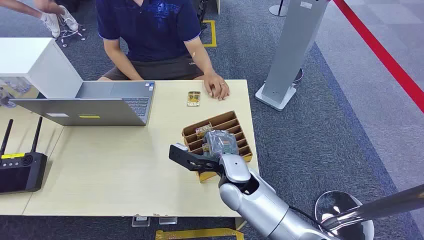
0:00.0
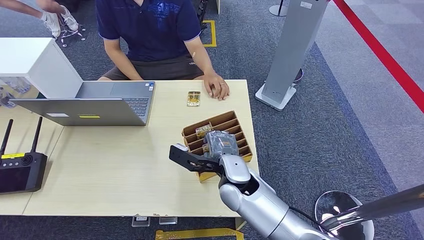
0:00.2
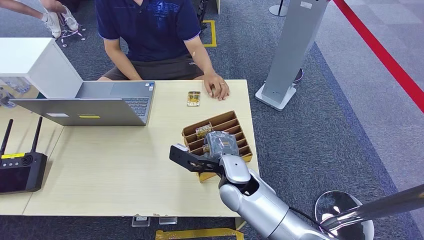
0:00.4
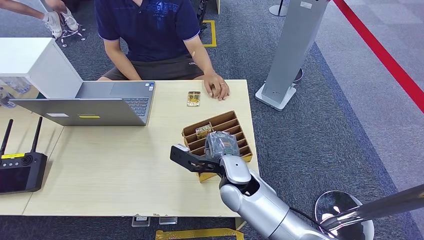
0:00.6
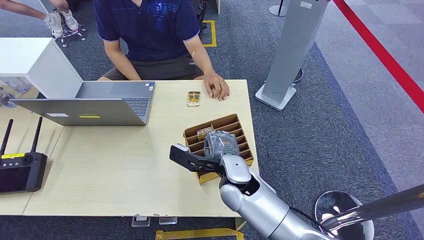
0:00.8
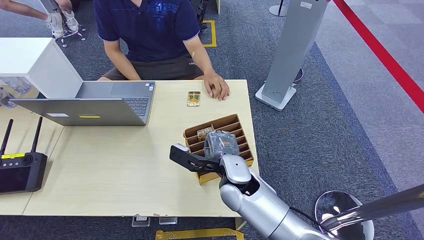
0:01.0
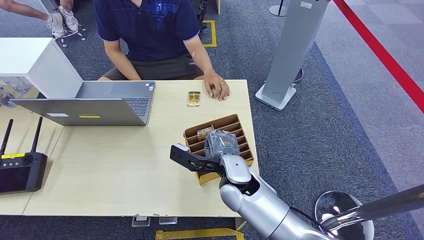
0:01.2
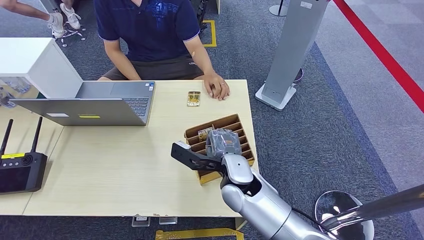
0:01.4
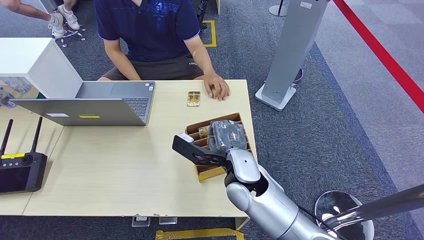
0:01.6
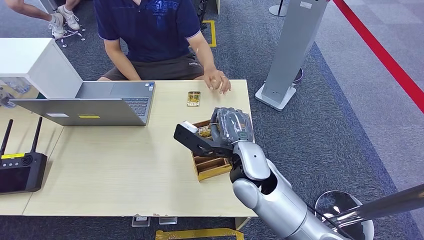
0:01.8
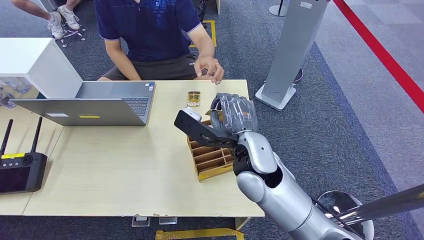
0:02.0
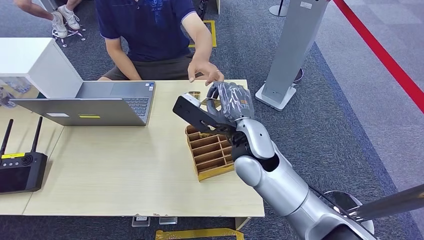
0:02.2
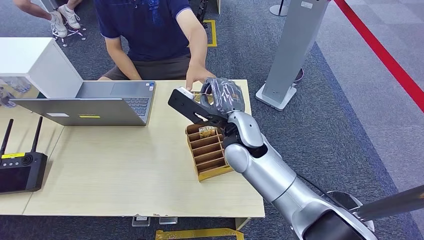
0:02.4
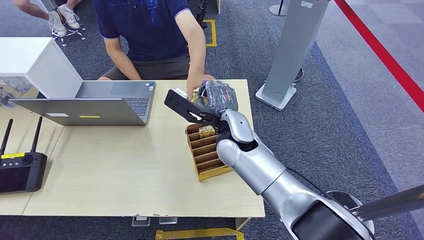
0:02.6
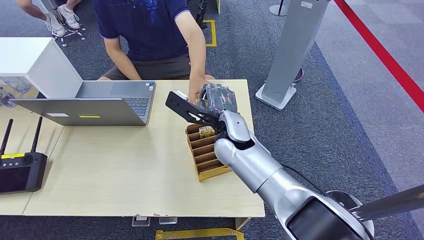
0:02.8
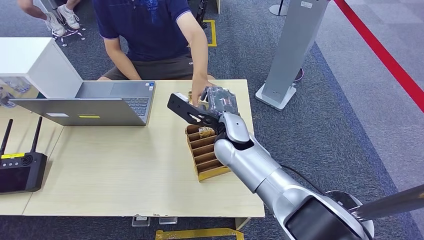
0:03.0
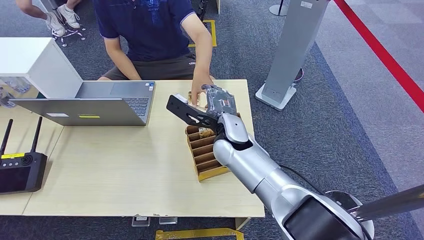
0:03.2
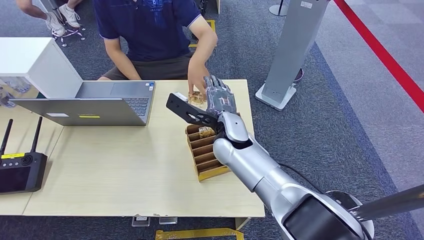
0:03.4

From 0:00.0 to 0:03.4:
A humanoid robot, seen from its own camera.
Step, from 0:00.0 to 0:02.0: Pick up the room card from the card holder.
Step, from 0:02.6 to 0:03.4: Hand the room card to the target.
From 0:01.6 to 0:03.4: The right hand heads forward, covering about 10 cm.

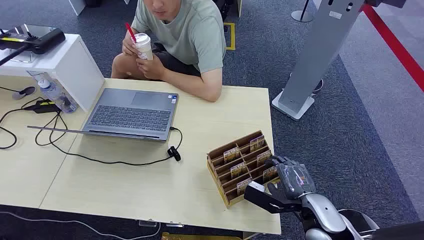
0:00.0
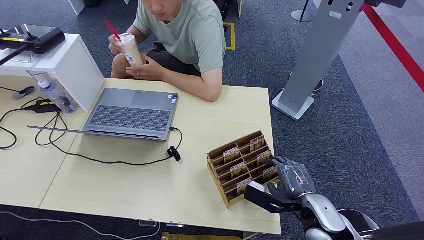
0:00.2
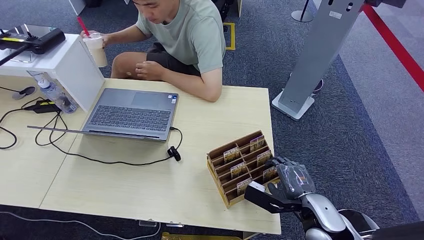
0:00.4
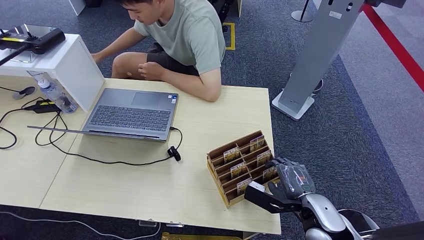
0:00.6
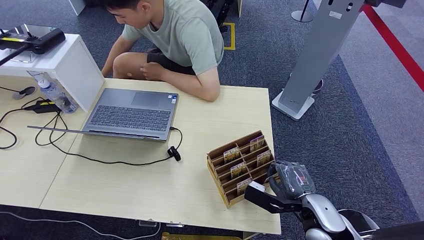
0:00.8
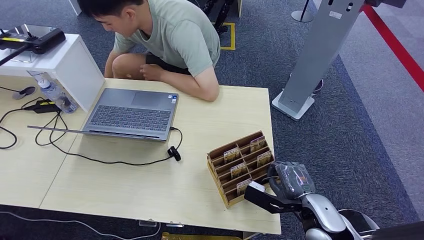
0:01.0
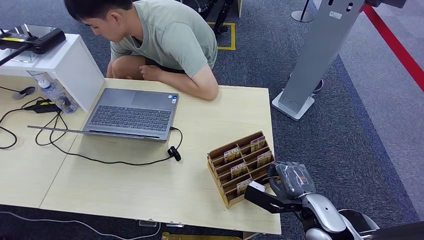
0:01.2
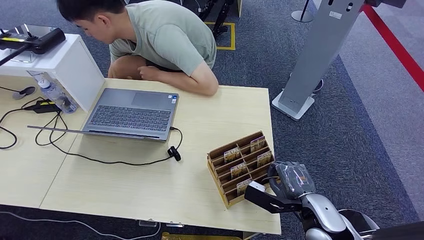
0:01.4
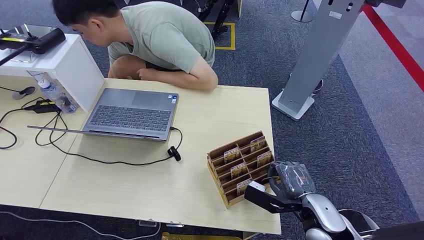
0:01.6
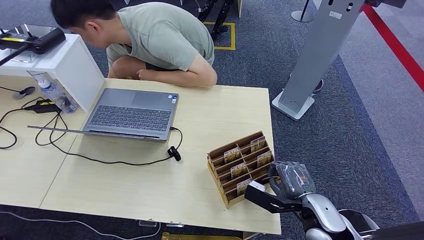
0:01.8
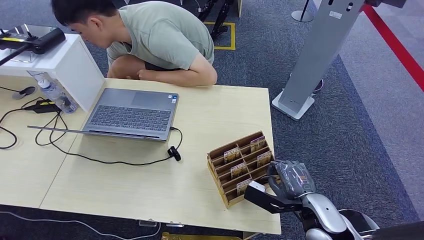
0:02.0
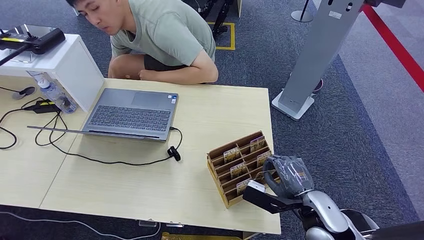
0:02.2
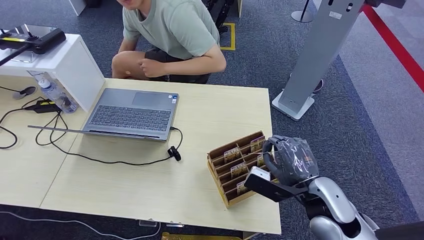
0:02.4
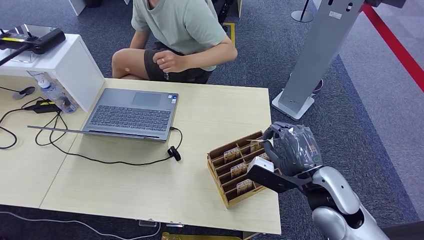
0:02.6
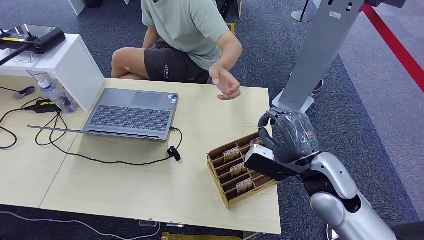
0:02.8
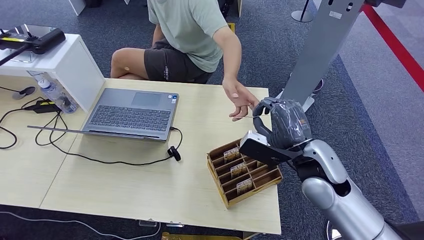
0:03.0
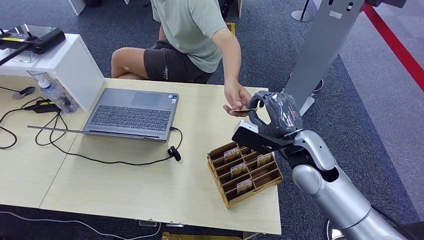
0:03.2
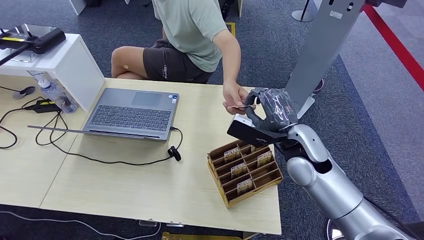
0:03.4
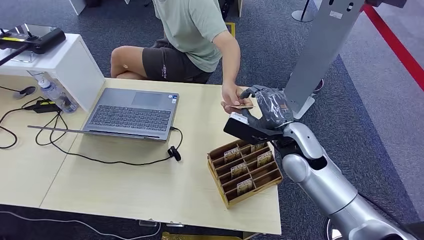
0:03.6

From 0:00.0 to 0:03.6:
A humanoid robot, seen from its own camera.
Step, from 0:00.0 to 0:02.6: Pick up the room card from the card holder.
Step, from 0:02.8 to 0:03.4: Hand the room card to the target.

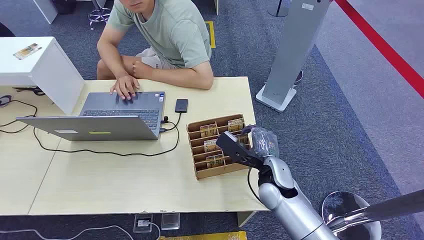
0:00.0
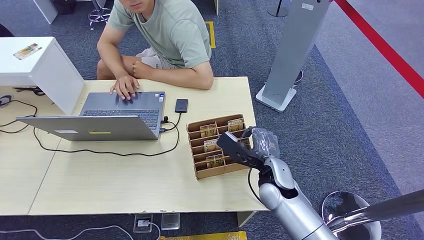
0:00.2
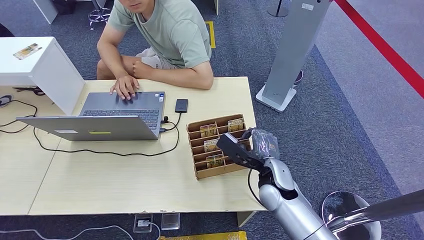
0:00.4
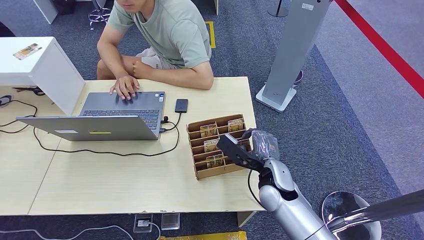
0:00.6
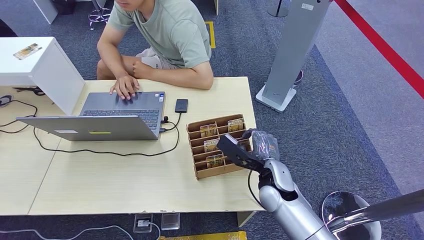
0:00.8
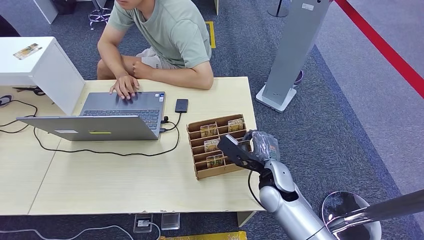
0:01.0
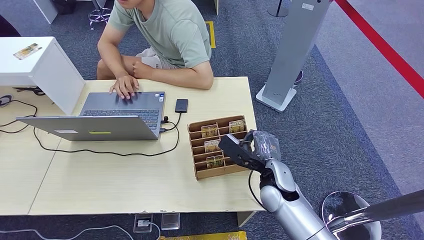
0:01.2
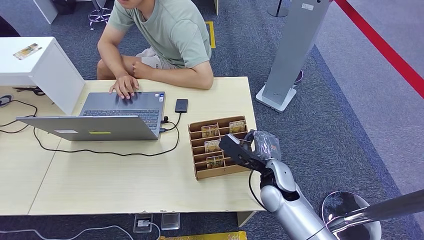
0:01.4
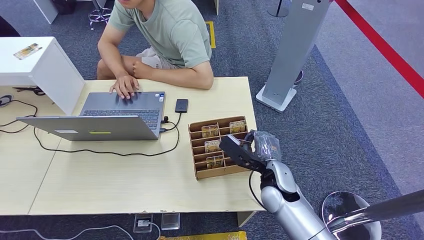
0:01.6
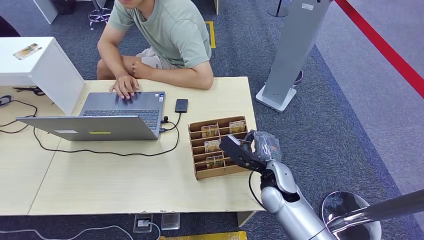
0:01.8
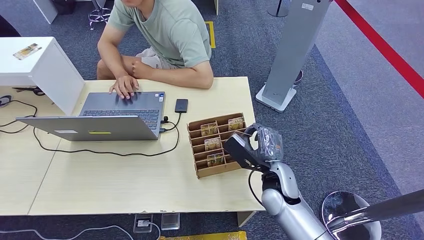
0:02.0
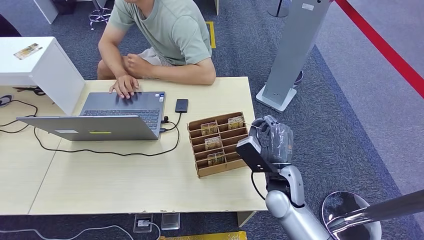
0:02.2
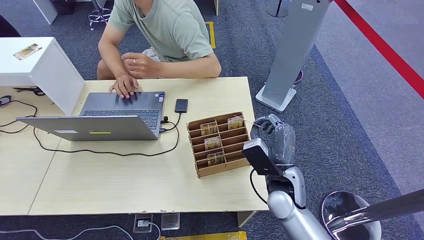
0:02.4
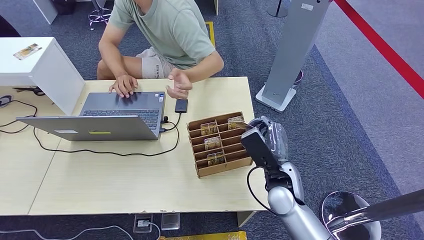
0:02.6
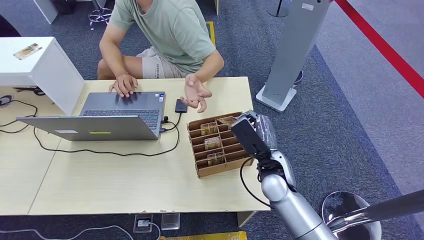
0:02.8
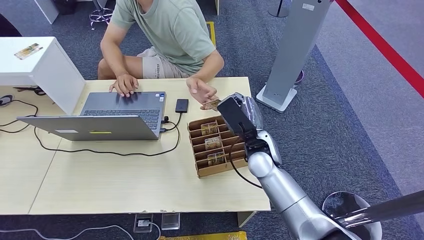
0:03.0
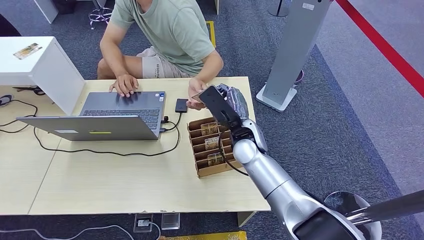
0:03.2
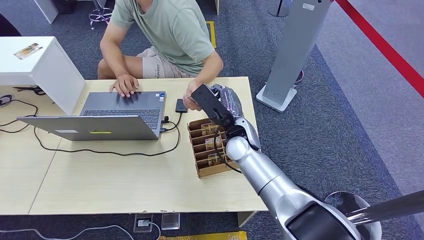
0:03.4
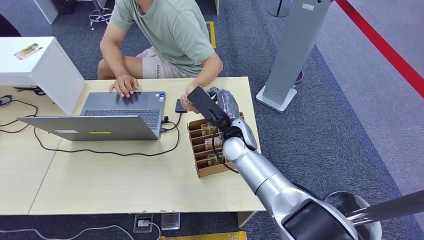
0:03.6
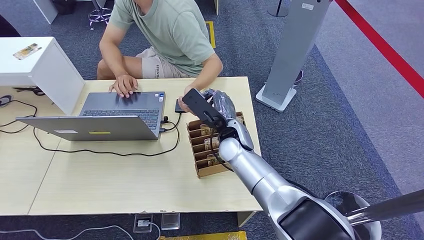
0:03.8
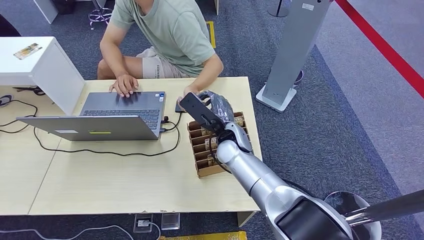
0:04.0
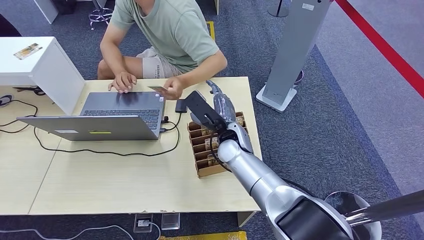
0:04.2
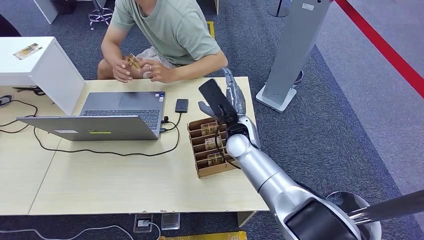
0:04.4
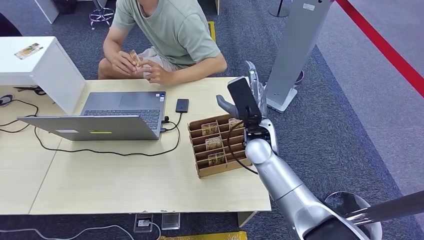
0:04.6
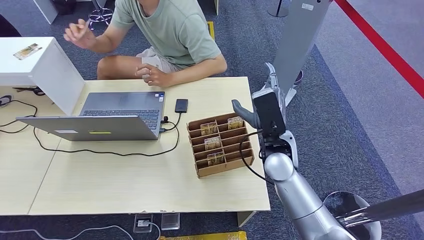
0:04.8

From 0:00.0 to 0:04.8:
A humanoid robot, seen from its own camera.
Step, from 0:00.0 to 0:02.2: Pick up the room card from the card holder.
Step, from 0:03.8 to 0:04.8: Hand the room card to the target.
From 0:01.6 to 0:03.2: The right hand heads forward, upward and to the left, covering roughly 15 cm.
From 0:03.2 to 0:04.8: The right hand heads to the right, covering some 5 cm.
